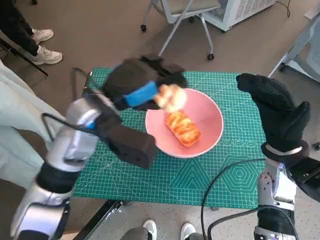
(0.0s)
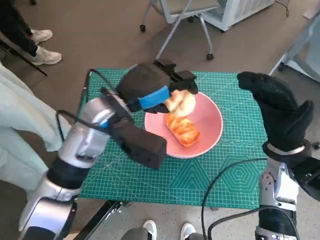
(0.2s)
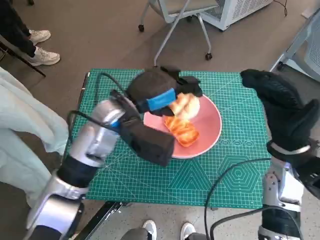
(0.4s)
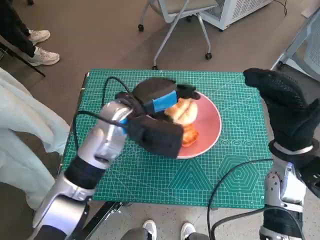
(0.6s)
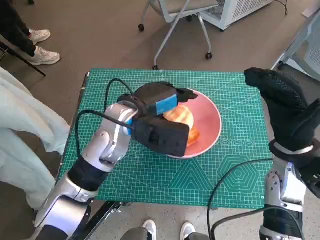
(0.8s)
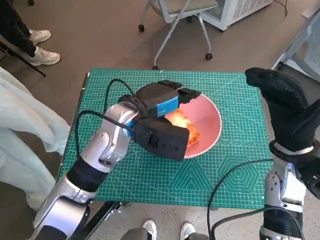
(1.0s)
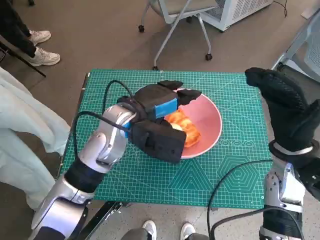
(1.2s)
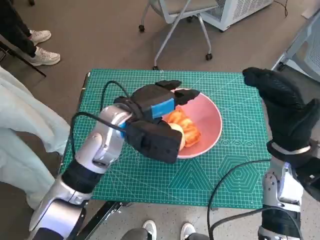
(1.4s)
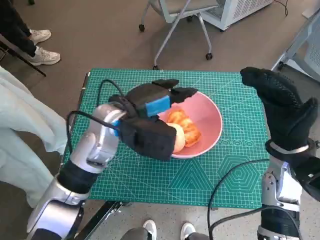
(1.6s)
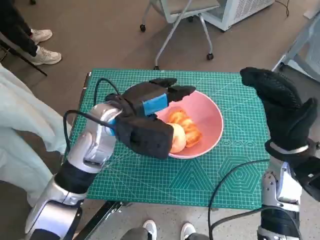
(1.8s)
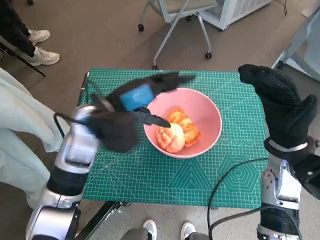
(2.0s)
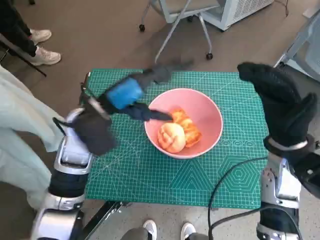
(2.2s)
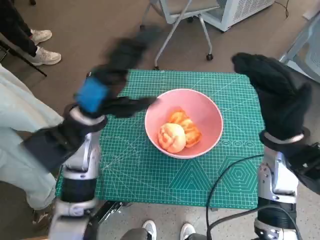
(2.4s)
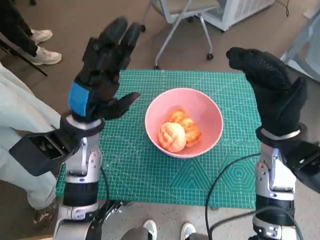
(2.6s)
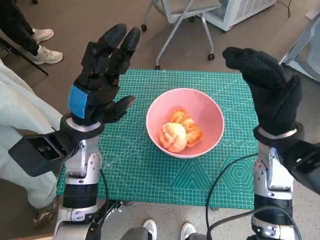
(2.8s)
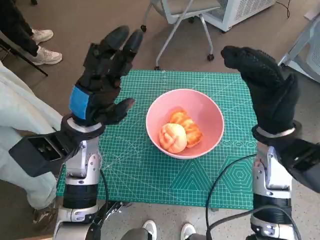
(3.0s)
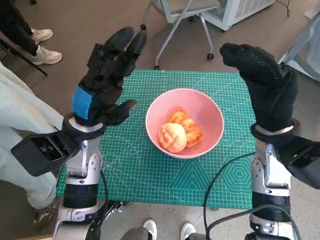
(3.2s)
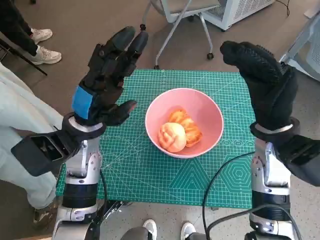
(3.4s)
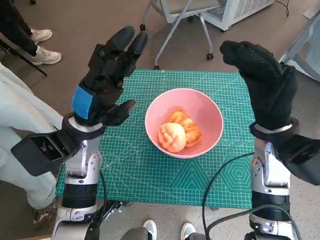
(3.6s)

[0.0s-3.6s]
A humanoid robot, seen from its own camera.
Task of the whole recording: Push the bowl into the center of the table and put the bread into the bowl.
Step, 0.0s to 1.6s: Place the round bread in pink bowl with left hand.
1.8s to 3.6s: The left hand heads to the left, covering approximately 5 cm.
